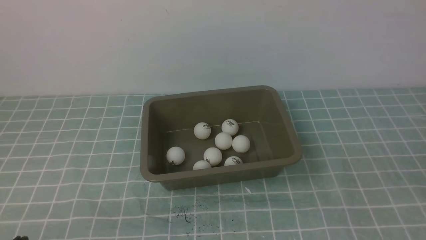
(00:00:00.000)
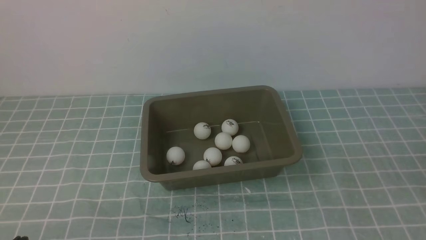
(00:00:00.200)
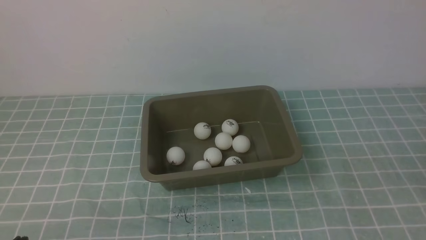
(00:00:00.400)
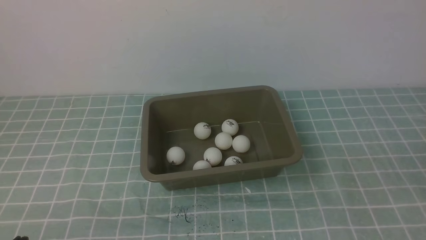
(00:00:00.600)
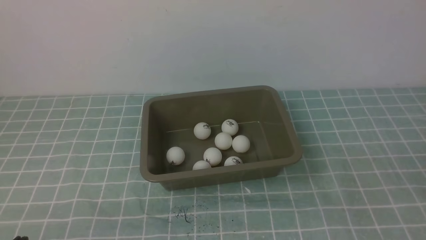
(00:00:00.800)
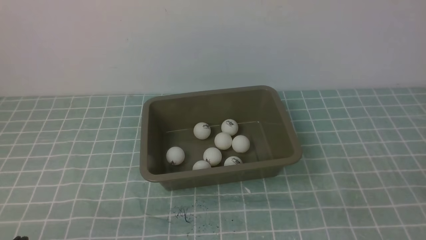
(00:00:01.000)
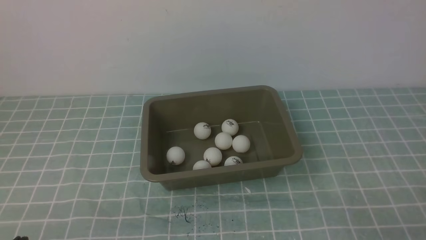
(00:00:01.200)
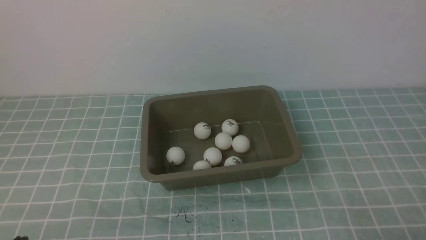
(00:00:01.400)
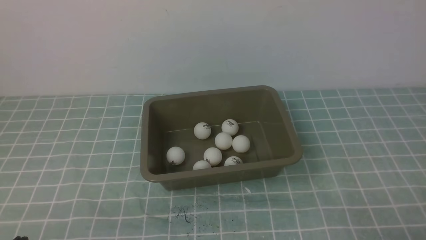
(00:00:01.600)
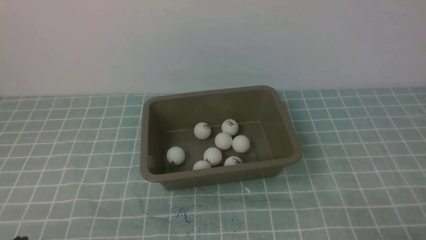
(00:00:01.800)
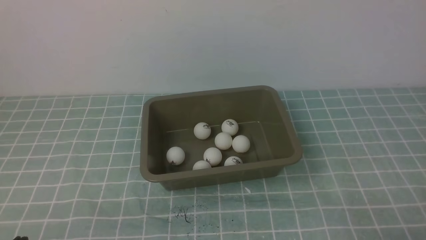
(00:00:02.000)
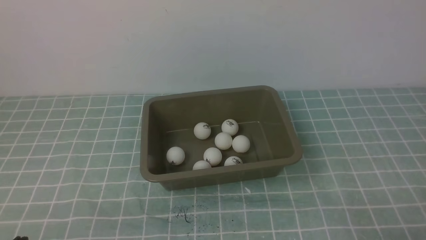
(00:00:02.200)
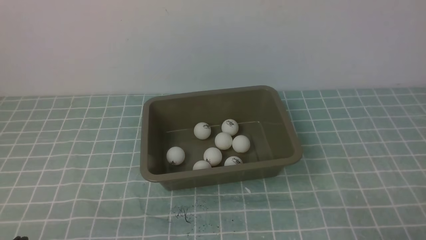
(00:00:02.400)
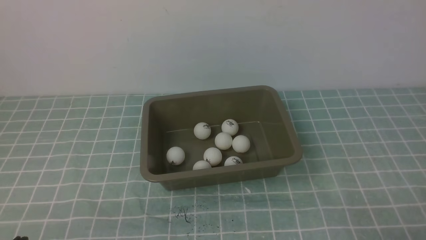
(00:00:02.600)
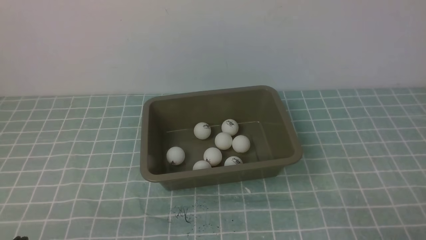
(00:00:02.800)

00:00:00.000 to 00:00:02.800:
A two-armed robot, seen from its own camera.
00:00:01.400 to 00:00:02.800: Neither gripper changes place.
